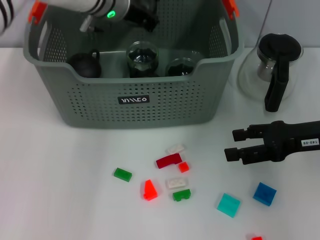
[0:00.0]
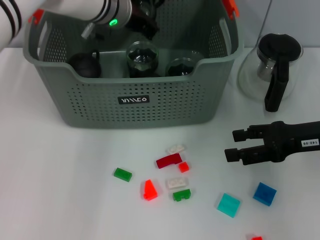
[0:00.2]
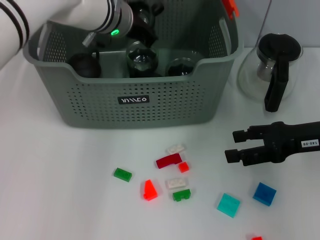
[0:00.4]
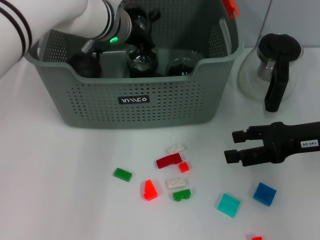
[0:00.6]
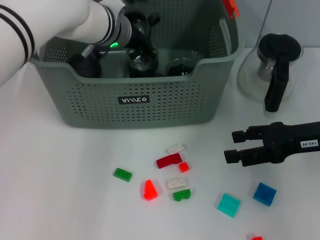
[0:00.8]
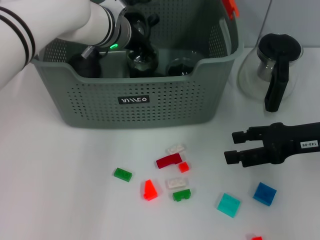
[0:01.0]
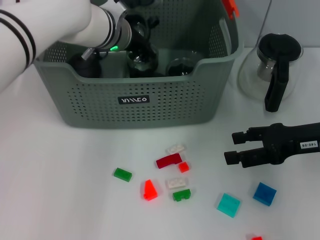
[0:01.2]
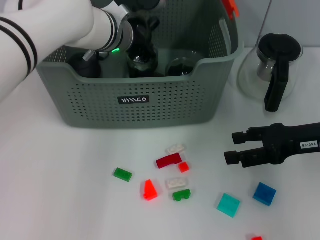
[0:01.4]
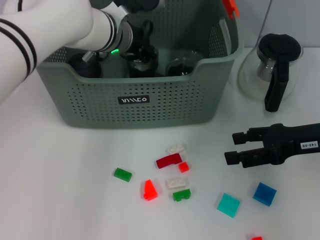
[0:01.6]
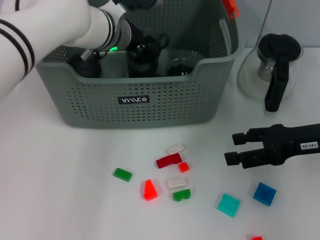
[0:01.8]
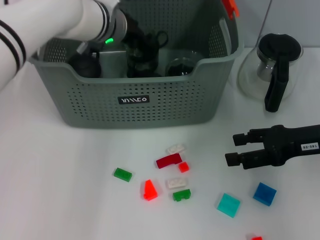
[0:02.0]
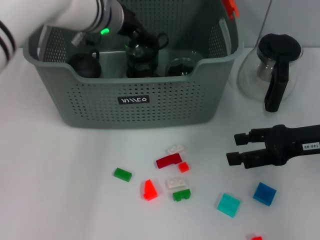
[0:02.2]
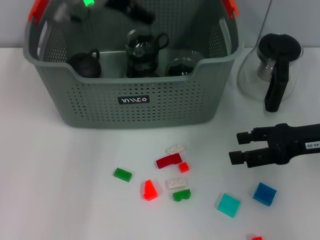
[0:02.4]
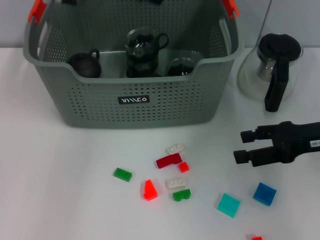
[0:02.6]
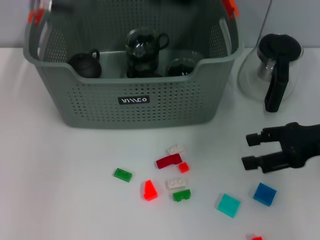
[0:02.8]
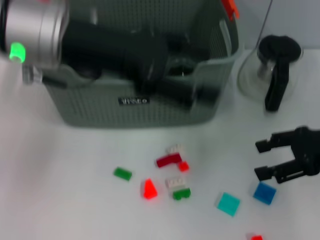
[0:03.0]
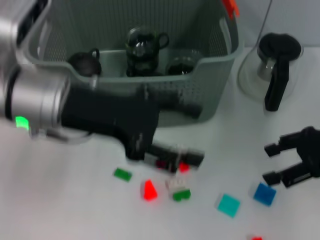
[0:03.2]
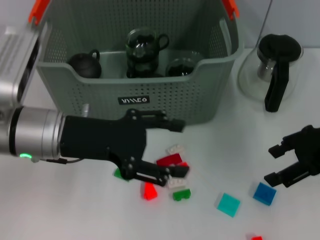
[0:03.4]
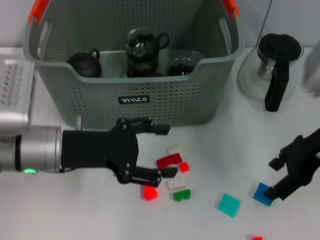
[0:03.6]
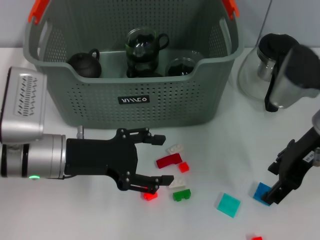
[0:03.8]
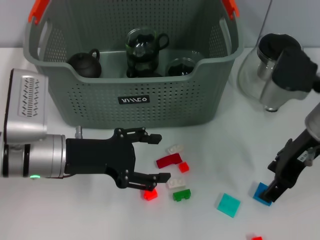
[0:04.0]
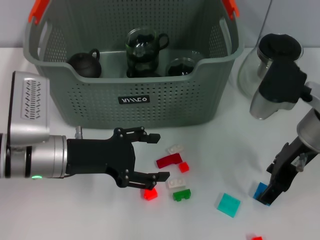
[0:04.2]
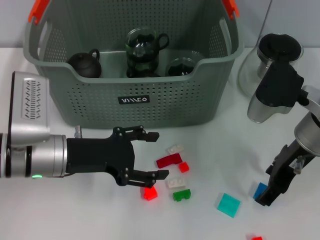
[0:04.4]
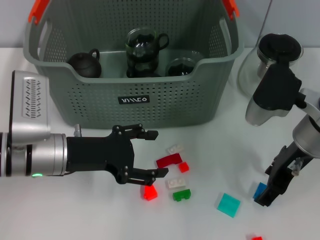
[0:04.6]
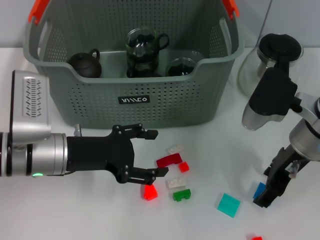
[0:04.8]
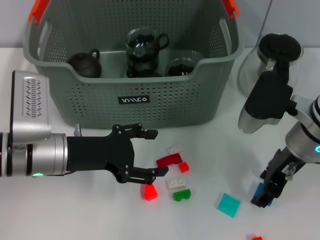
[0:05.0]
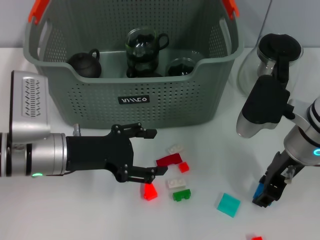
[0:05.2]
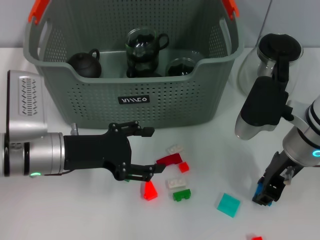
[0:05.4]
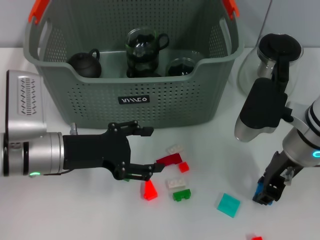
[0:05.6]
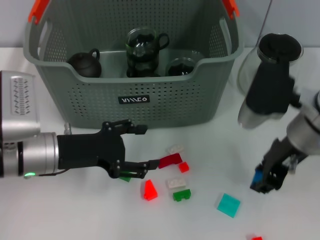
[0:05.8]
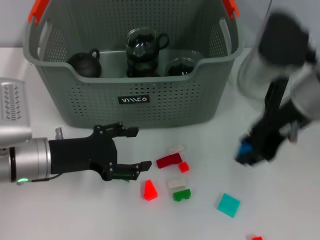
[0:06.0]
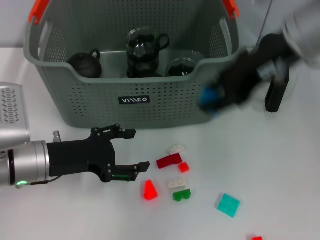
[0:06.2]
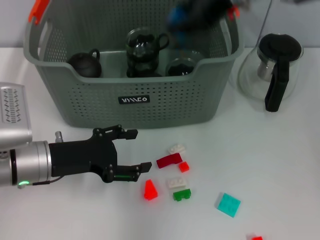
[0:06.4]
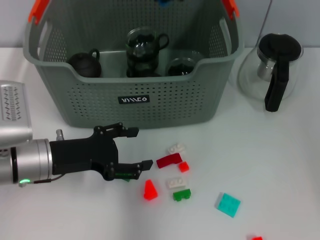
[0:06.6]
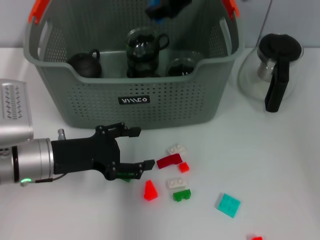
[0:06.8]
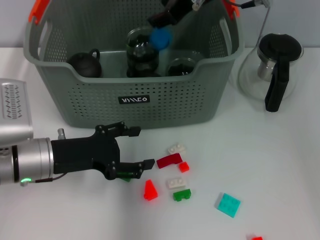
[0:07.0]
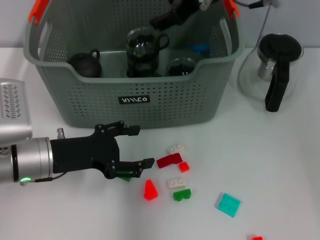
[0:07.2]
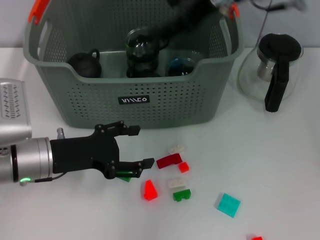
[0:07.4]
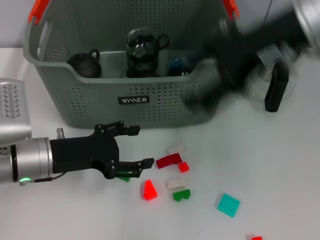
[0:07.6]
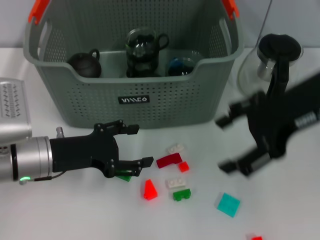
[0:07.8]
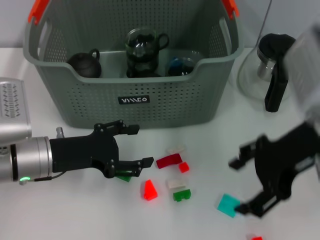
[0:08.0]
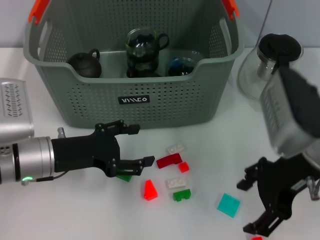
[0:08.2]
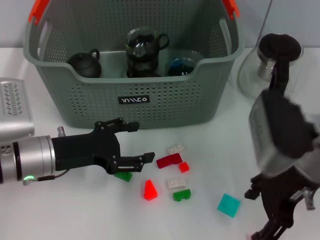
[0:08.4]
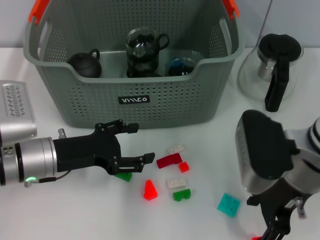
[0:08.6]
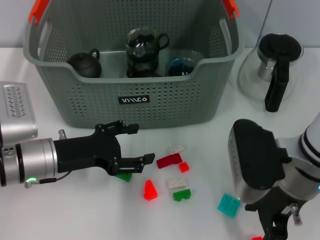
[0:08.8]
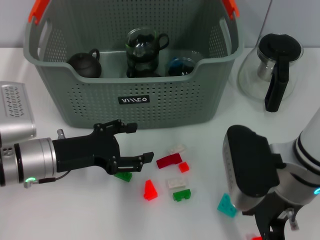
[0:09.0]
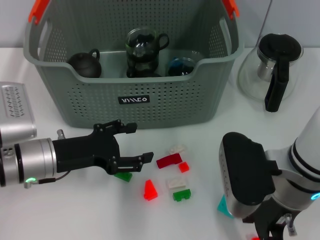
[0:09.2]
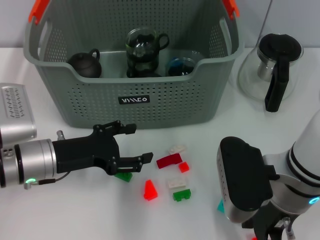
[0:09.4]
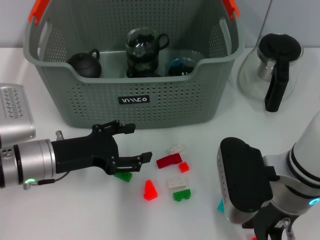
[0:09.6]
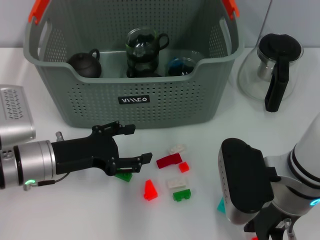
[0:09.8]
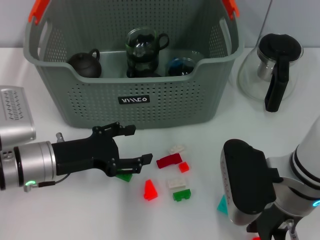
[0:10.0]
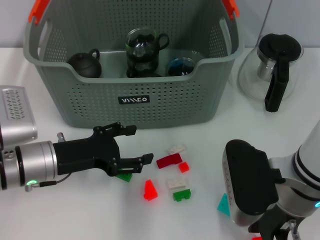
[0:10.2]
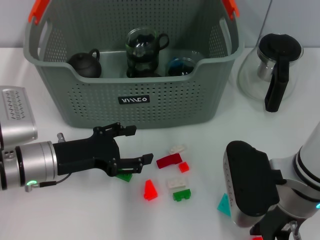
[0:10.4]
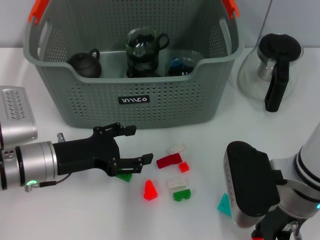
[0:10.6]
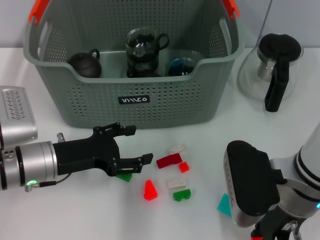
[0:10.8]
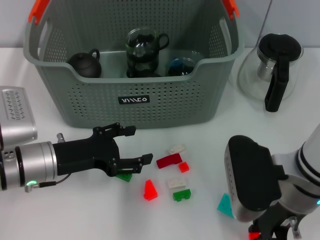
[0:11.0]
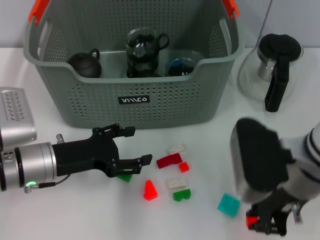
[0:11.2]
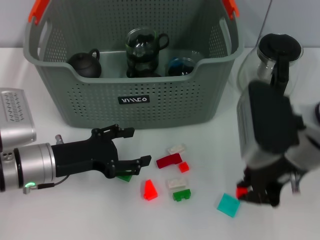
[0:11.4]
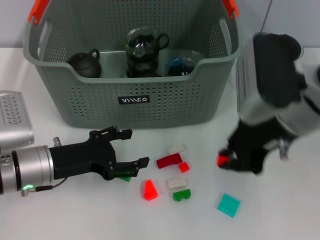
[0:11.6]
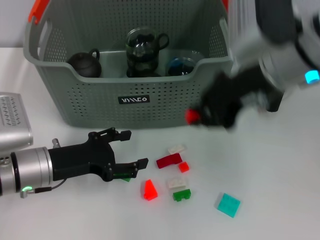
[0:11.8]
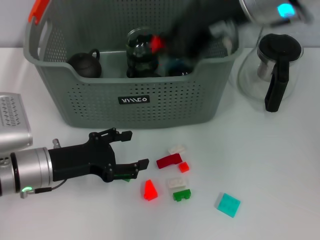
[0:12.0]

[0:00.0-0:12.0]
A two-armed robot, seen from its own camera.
Task of the whole recording: pick up the teacup on the table and place it into the storage bin, pick up the block on the table and place it into the storage bin.
Step, 0.0 to 2.4 s: Place the cup in the storage box with left gripper.
Step, 2.6 to 5.4 s: Grasp the dark blue block with right gripper.
Step, 5.6 to 7.2 s: Place the dark blue block in the storage box with right gripper.
Step, 7.4 to 10.6 s: Grasp the orange block with right gripper.
0.0 to 1.6 s: The left gripper ends up approximately 5 cm from where it was.
1.6 to 3.0 s: The left gripper moves backward, upward and to the left, approximately 20 cm, and opens.
3.0 to 4.4 s: The right gripper is displaced to the left by about 10 cm; the left gripper moves downward, about 15 cm.
4.4 to 6.0 s: The right gripper heads upward, covering about 10 cm, and closes.
6.0 to 7.6 s: The right gripper travels forward and back again, about 10 cm each way, and opens up.
7.6 to 9.0 s: The right gripper shifts roughly 15 cm downward and backward.
9.0 to 10.4 s: The right gripper closes its fingers.
10.4 to 12.0 s: The right gripper travels upward and forward by some 20 cm.

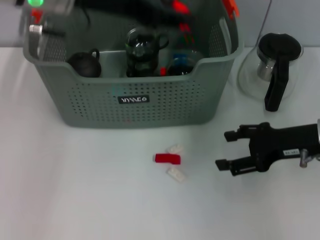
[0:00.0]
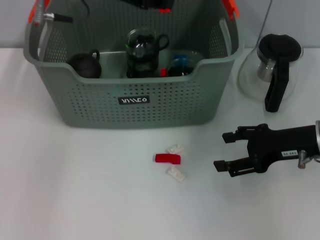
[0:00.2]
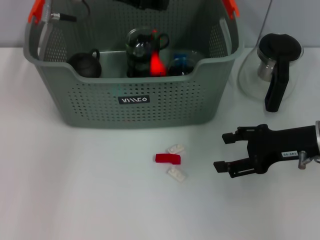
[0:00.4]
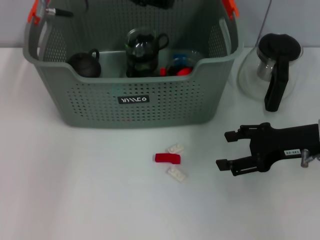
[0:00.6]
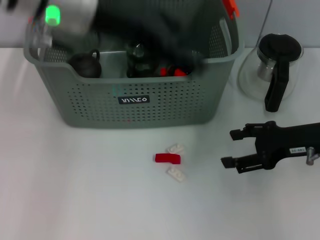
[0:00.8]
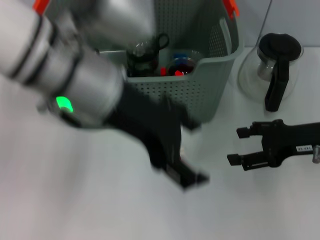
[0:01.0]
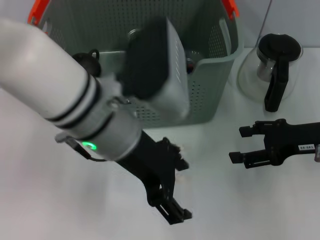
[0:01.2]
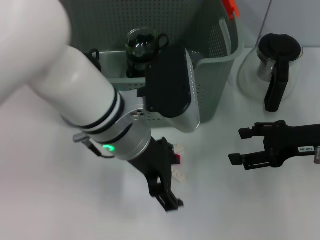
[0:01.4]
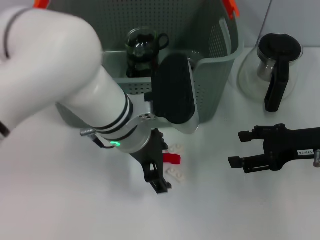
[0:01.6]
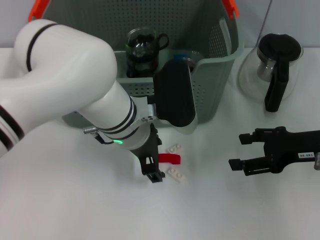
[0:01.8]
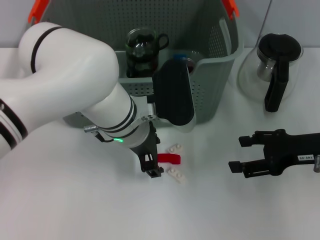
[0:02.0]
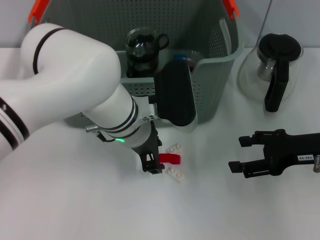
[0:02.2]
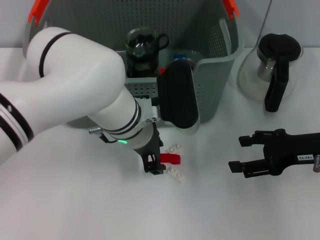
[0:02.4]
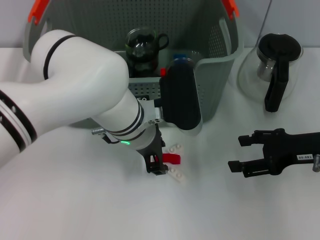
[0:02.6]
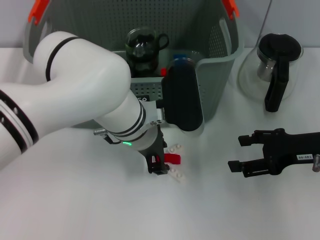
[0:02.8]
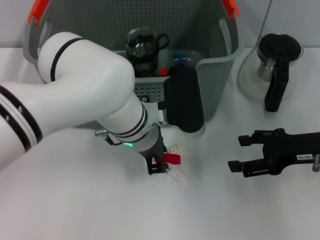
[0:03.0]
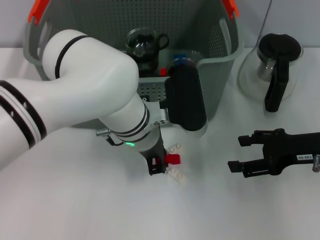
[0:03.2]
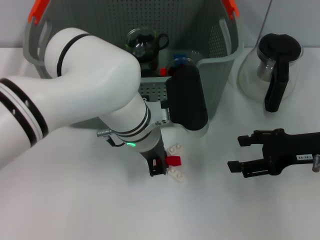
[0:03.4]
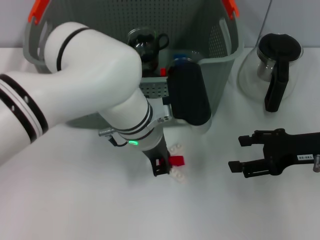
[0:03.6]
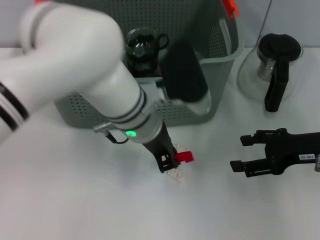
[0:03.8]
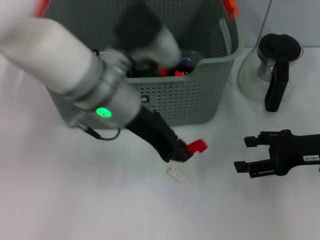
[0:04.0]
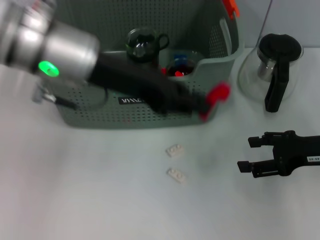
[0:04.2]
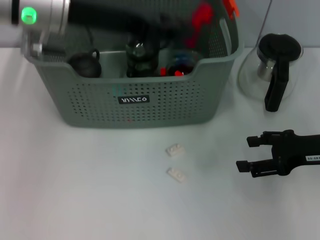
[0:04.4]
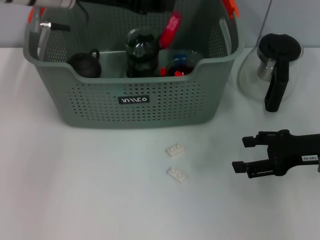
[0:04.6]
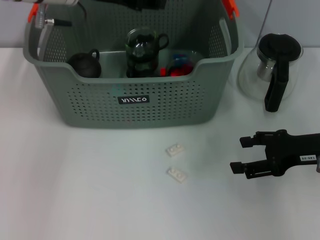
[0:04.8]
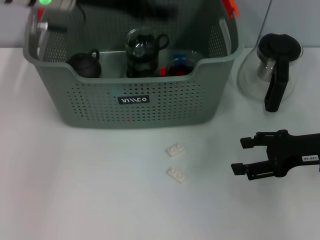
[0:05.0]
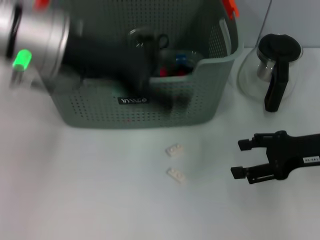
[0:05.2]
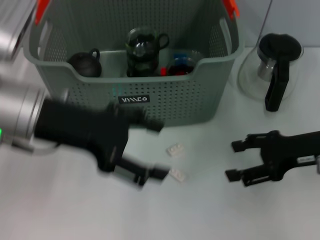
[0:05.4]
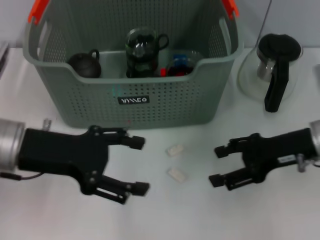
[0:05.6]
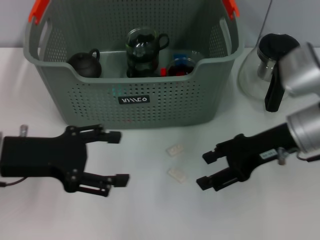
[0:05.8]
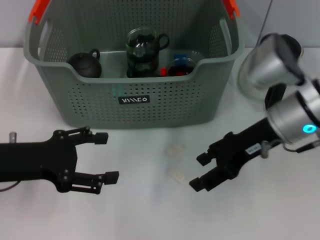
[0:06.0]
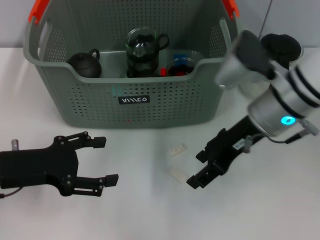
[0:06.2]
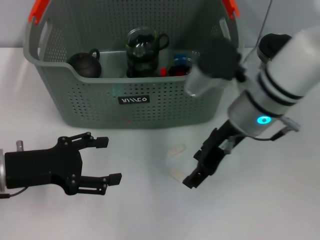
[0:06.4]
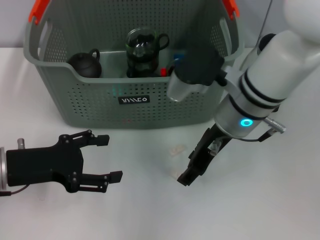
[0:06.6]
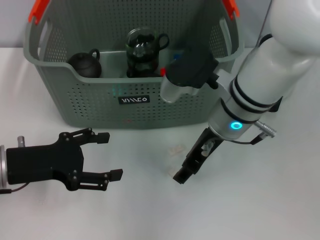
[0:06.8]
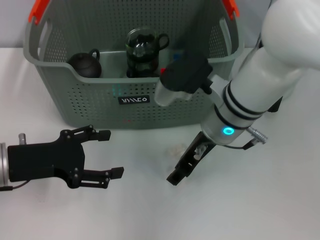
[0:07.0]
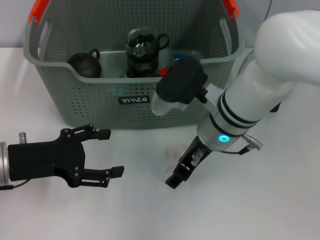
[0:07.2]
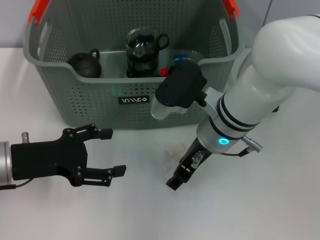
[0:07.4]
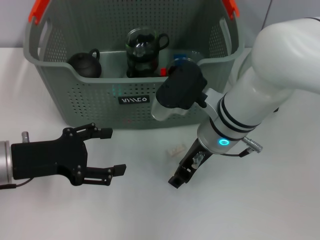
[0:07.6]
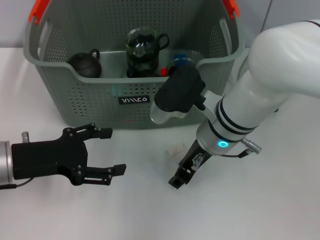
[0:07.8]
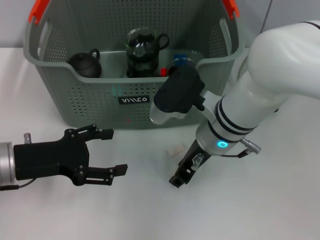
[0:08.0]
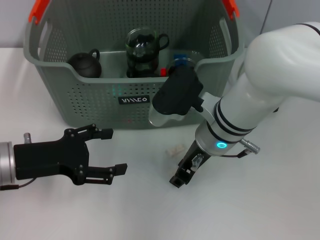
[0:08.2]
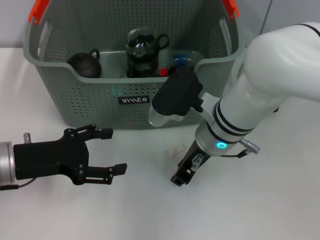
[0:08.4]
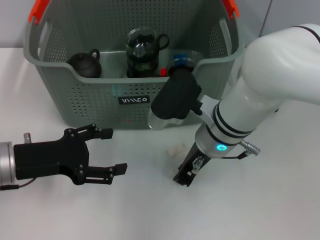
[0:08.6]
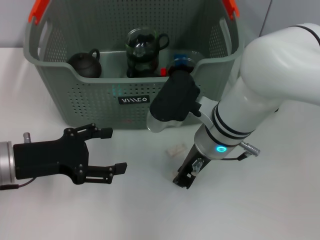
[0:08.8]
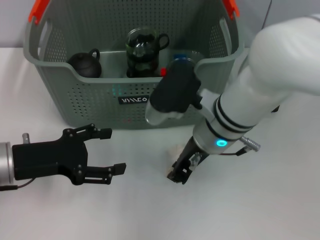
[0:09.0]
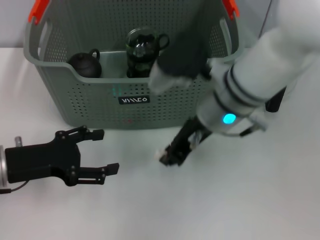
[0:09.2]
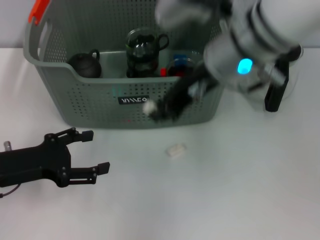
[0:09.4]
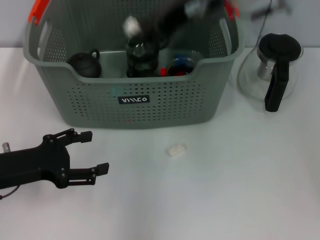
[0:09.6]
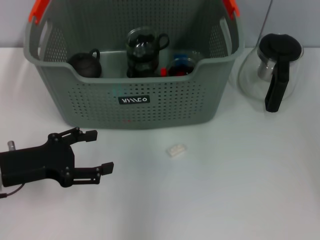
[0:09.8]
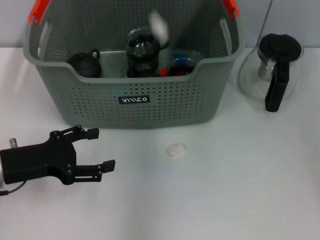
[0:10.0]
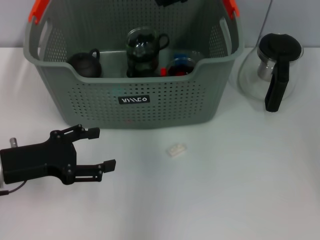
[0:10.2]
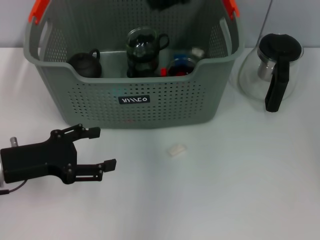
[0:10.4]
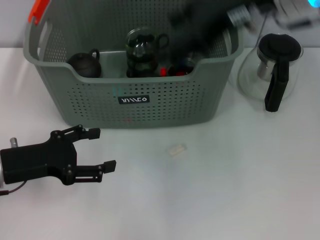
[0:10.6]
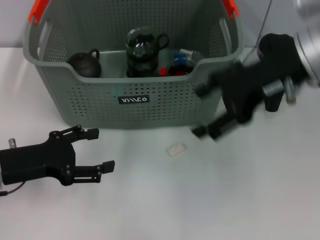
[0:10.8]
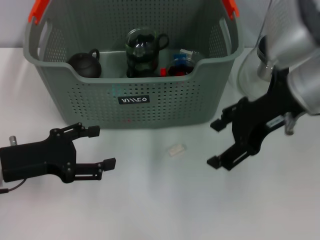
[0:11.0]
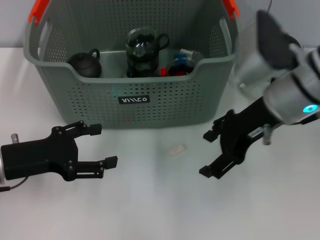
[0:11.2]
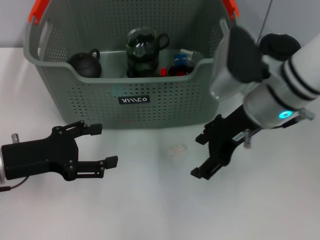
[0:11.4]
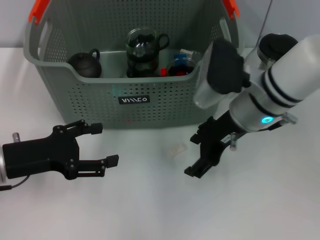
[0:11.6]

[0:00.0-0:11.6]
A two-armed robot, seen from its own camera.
Task of the whole recording: pick up the teacup on the table and place it into the storage bin, pick up the block on the table and place it into the storage bin.
Step, 0.8 to 3.2 s: Grasp the red block with left gripper.
Step, 3.6 to 4.6 s: Place the red block in the storage box with left gripper.
Step, 5.0 to 8.6 s: Grasp the white block with right gripper.
Step, 8.8 to 10.0 s: Place the white block in the storage box with right gripper.
0.0 to 1.4 s: The left gripper travels downward, to the right and backward by approximately 15 cm, and opens its fingers.
1.4 to 2.8 s: The left gripper is displaced downward by approximately 5 cm, and closes up.
2.8 to 4.4 s: The left gripper heads upward and to the left, covering about 20 cm, and closes up.
4.4 to 5.8 s: The left gripper travels downward, backward and to the left by roughly 20 cm, and opens. The right gripper shifts roughly 10 cm to the left.
5.8 to 7.2 s: The right gripper is displaced to the left by about 15 cm.
7.2 to 8.8 s: The right gripper closes its fingers.
8.8 to 10.2 s: The right gripper heads upward and forward, covering roughly 20 cm.
10.2 to 11.6 s: The right gripper goes some 15 cm downward and backward, and opens.
